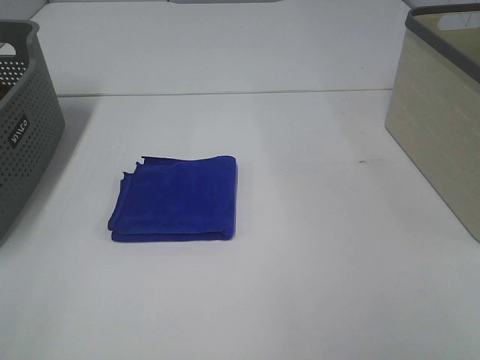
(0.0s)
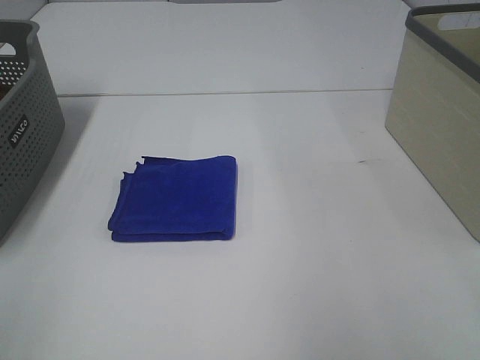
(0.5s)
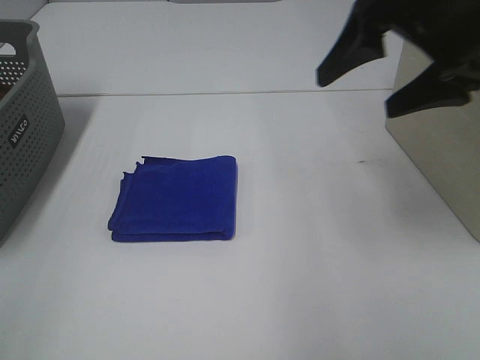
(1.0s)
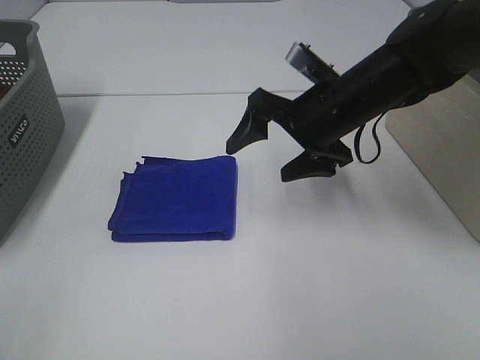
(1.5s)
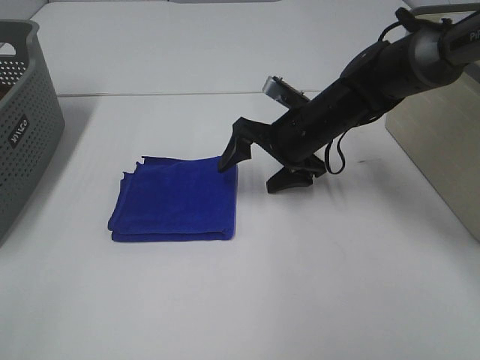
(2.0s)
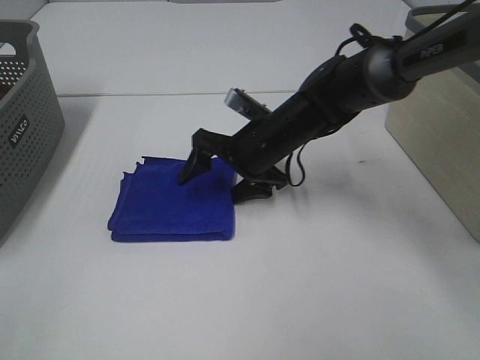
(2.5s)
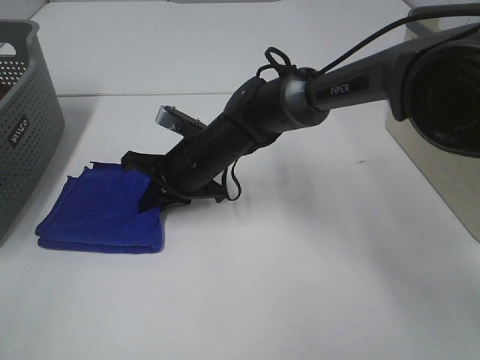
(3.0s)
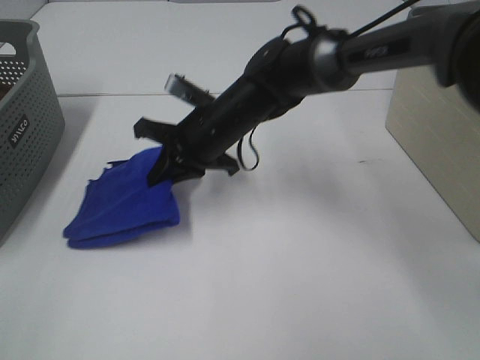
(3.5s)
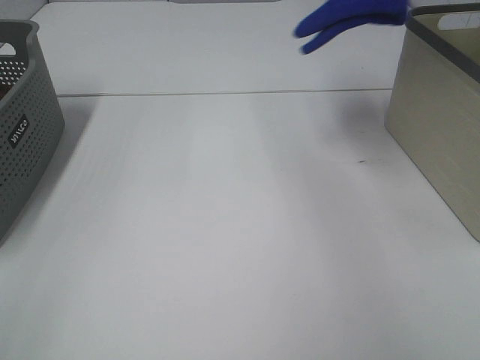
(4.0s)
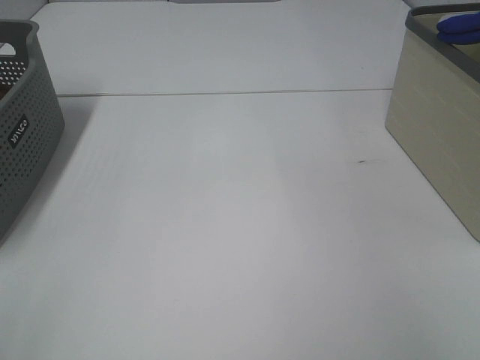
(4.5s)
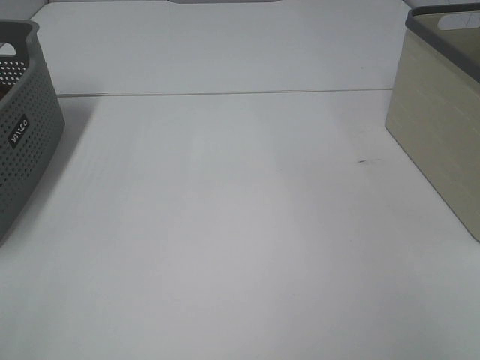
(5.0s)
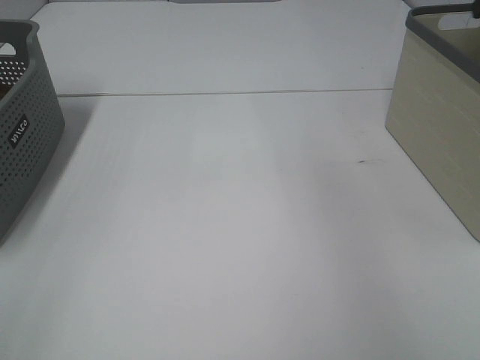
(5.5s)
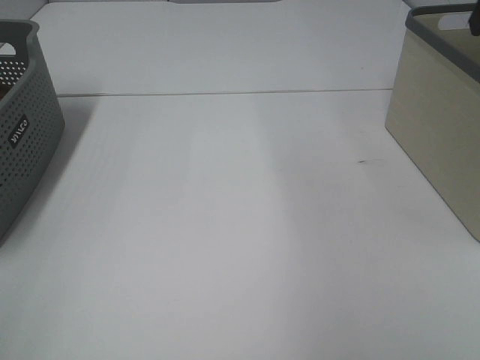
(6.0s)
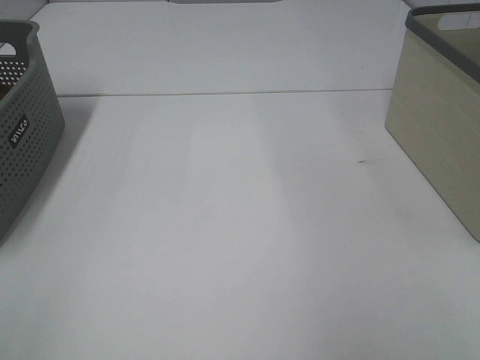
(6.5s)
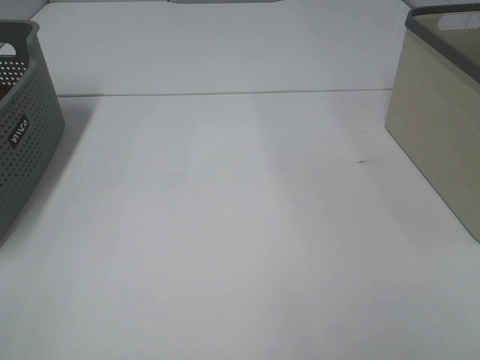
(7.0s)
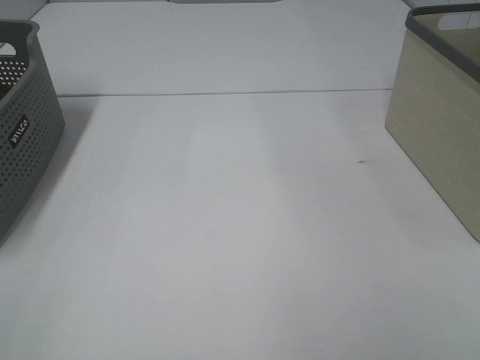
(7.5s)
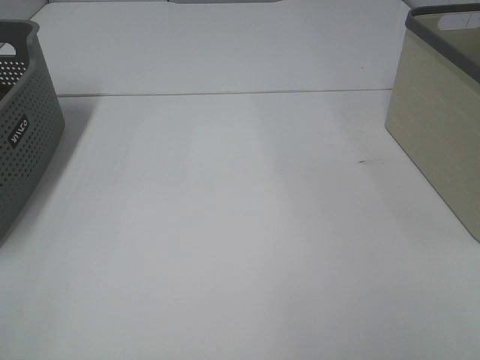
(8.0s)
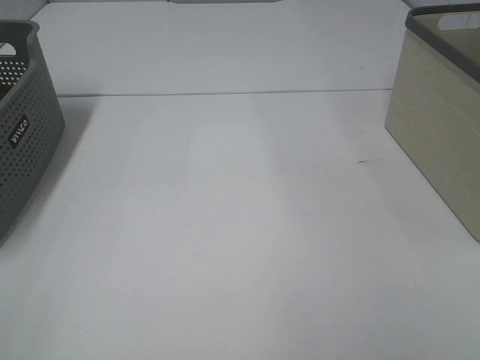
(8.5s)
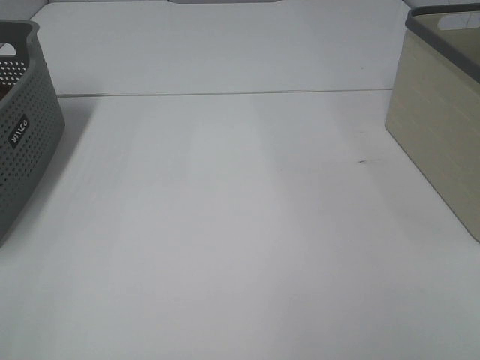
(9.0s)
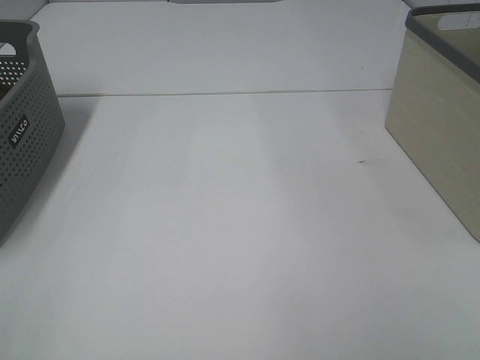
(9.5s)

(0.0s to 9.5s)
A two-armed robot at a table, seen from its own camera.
Step, 0.0s - 3.0s: Right hand: grab the folded blue towel.
Step, 3.5s - 5.0s: Right hand: place the blue towel in right basket.
0.0s - 2.0s: The right gripper moves forward, downward and to the left, roughly 50 cm.
2.0s - 4.0s: The right gripper is displaced upward and to the right by some 30 cm, and closes.
4.0s - 5.5s: The right gripper reaches some 15 cm to the right, then returns, and opens up.
7.5s - 9.5s: Neither gripper changes place.

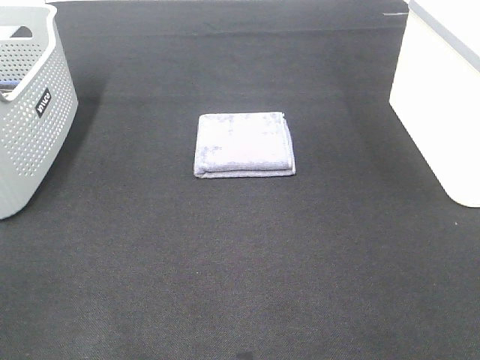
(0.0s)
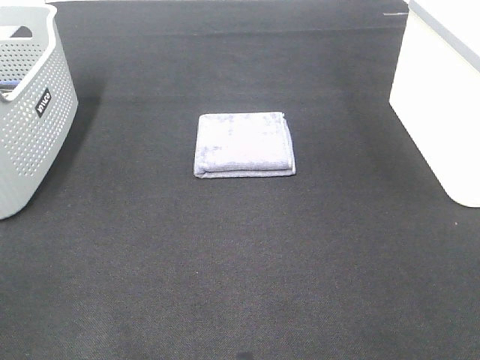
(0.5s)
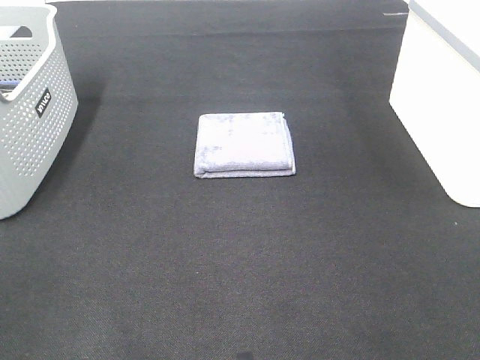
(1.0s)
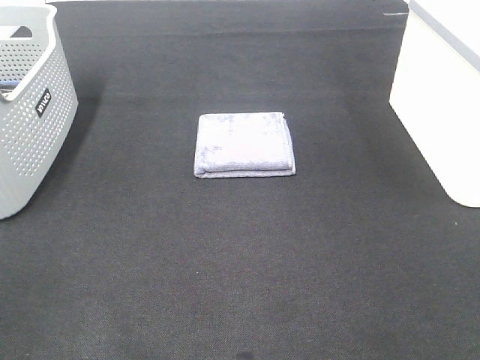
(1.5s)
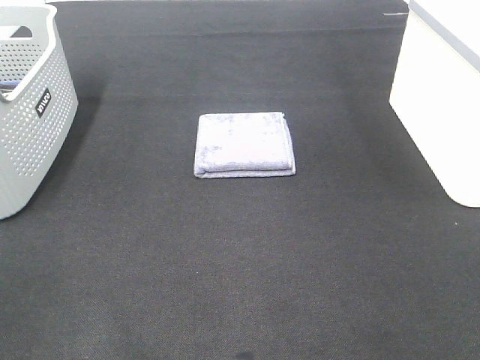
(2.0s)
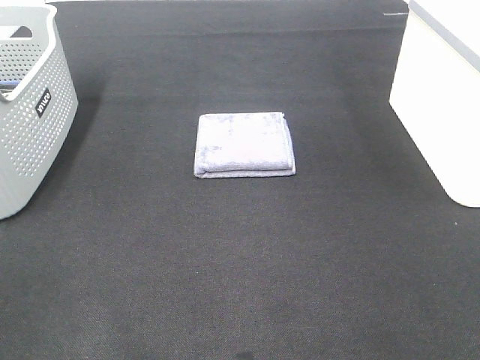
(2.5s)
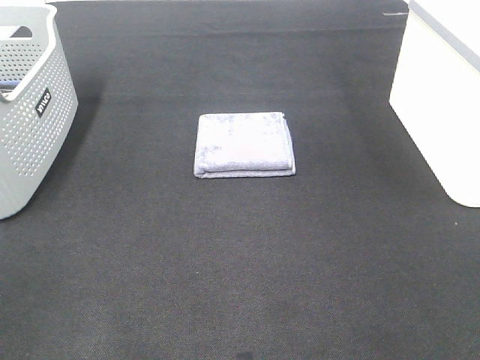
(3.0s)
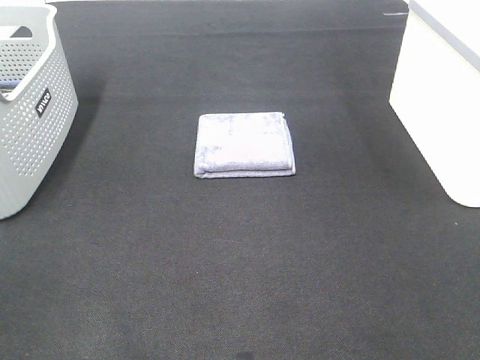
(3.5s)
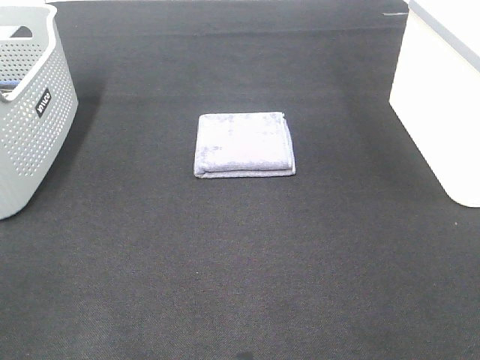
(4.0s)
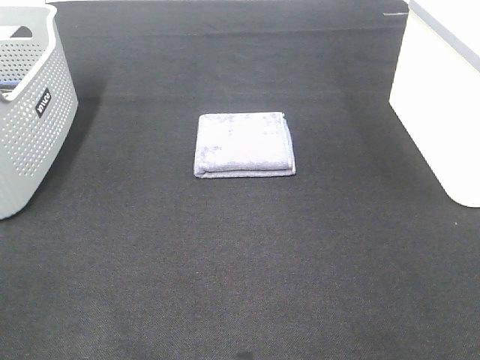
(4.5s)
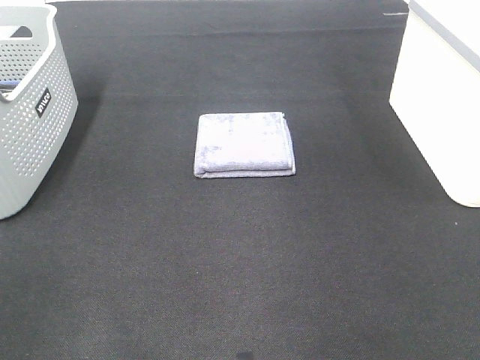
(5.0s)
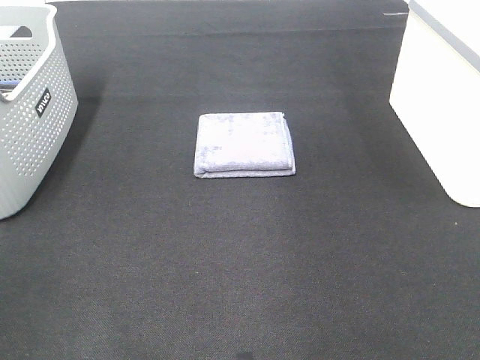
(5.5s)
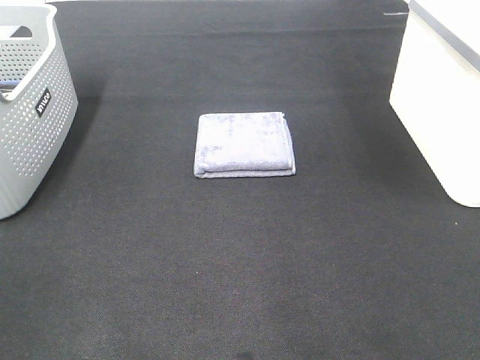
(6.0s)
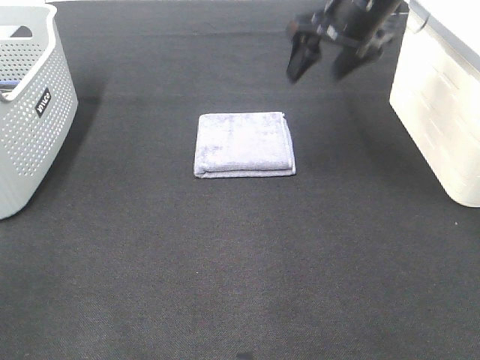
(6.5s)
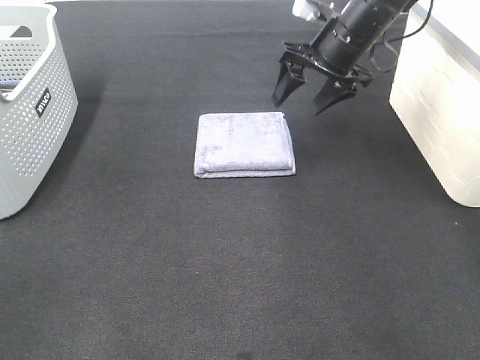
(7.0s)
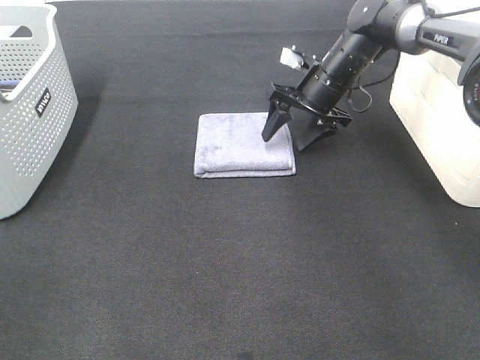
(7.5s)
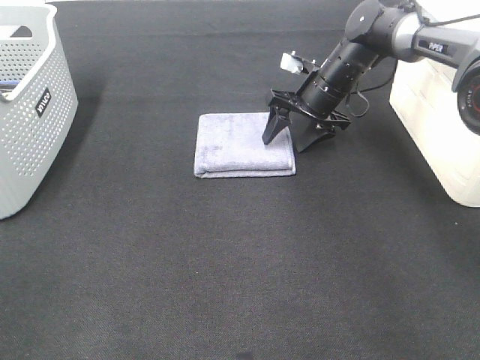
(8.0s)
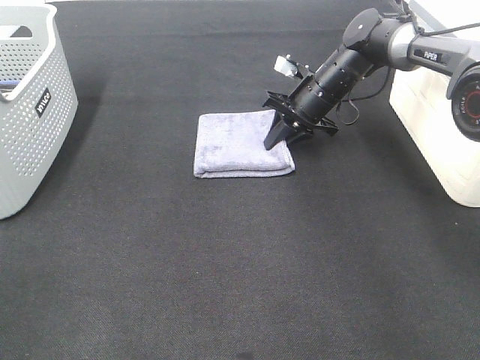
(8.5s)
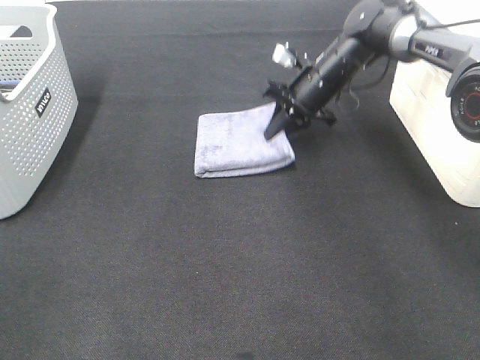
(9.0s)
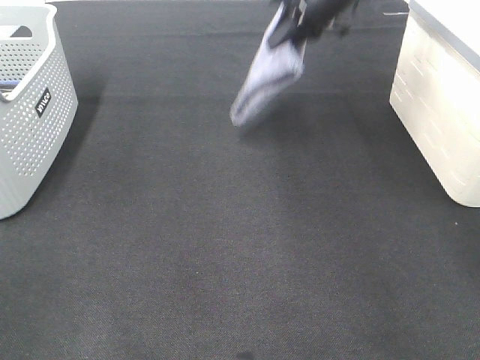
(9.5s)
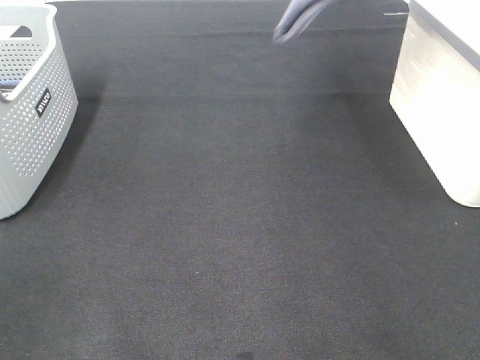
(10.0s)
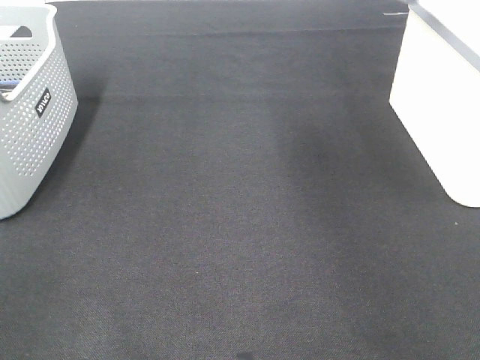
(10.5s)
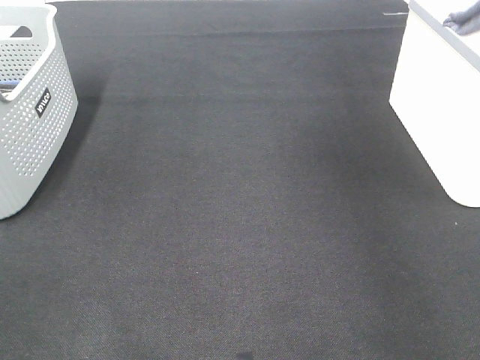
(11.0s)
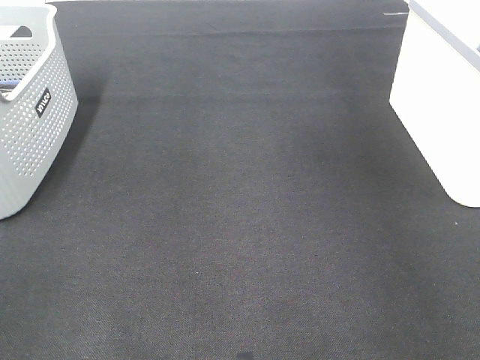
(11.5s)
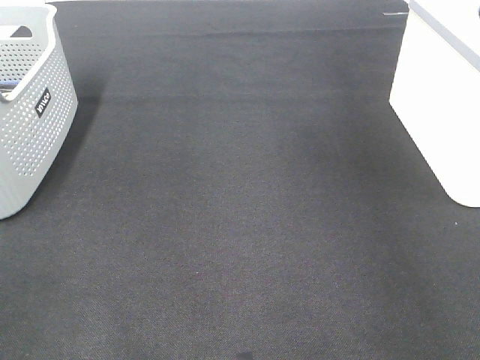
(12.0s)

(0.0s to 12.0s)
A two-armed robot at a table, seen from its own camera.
Step, 0.0s - 8.5s: Right hand: grab the folded grey towel.
Step, 9.0s - 11.5s: Right hand: place the grey towel in right basket.
0.0s - 4.0s: Both grippers stay about where they are.
6.0s - 8.0s: The right gripper is displaced downward and forward by approximately 30 cm.
8.0s - 10.0s: The right gripper is displaced upward by about 30 cm, and closes up.
10.0s - 12.0s: The right gripper travels to the right by some 20 cm, and opens.
